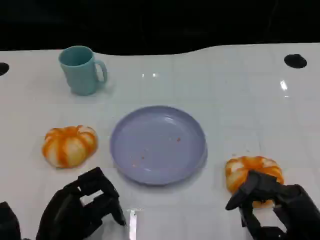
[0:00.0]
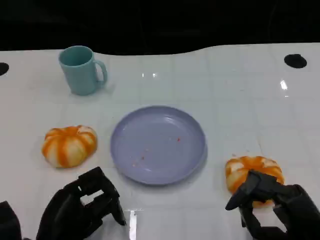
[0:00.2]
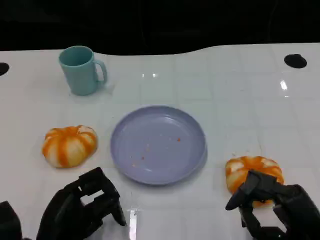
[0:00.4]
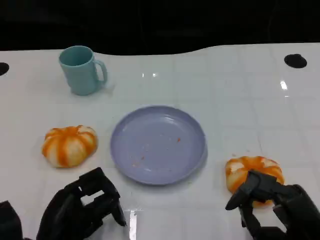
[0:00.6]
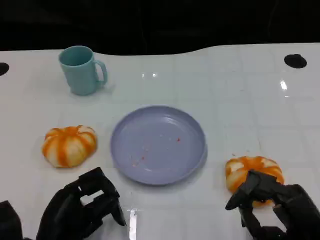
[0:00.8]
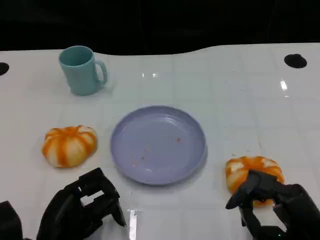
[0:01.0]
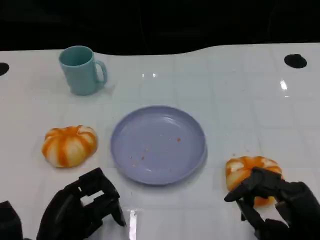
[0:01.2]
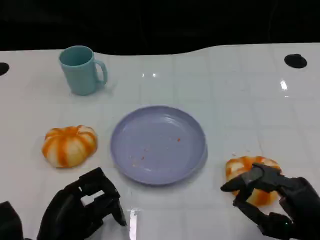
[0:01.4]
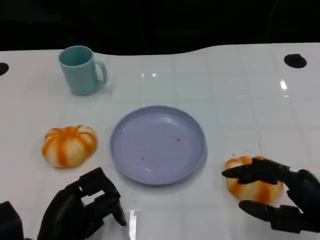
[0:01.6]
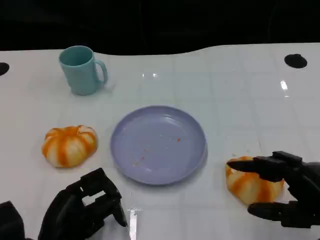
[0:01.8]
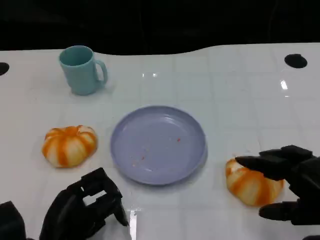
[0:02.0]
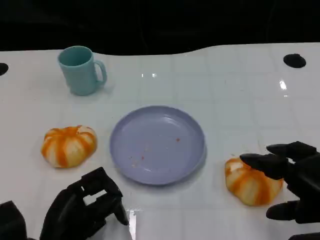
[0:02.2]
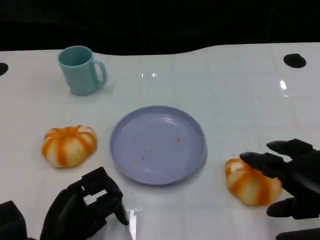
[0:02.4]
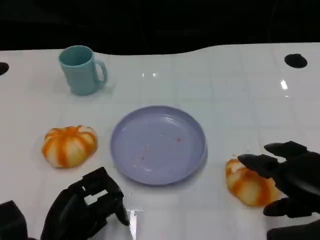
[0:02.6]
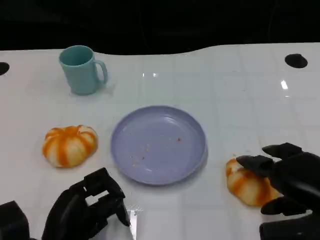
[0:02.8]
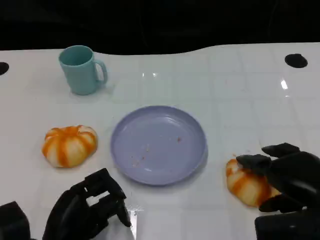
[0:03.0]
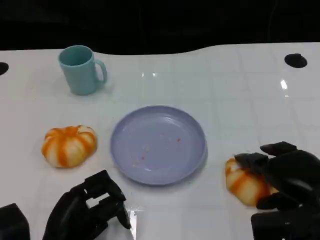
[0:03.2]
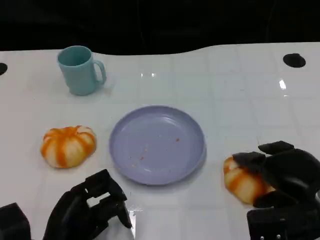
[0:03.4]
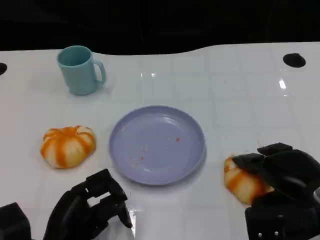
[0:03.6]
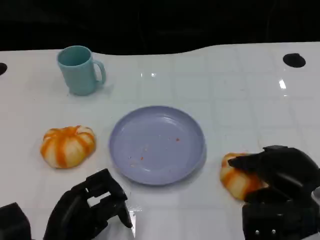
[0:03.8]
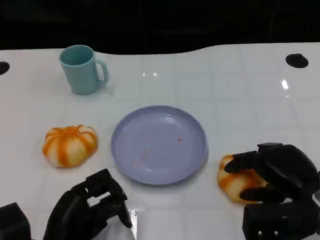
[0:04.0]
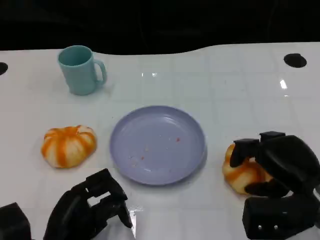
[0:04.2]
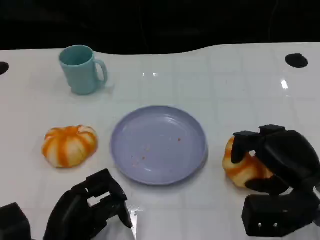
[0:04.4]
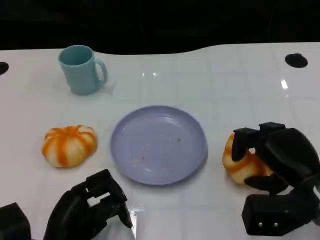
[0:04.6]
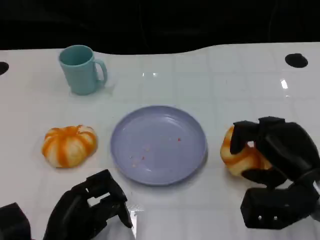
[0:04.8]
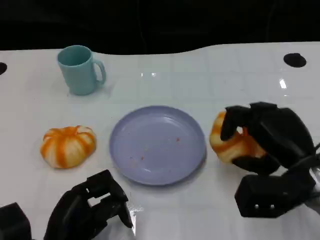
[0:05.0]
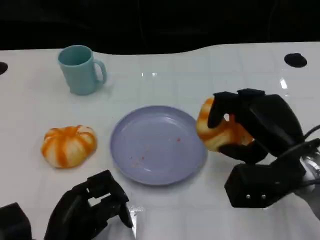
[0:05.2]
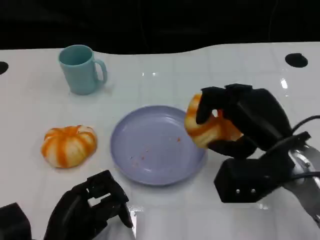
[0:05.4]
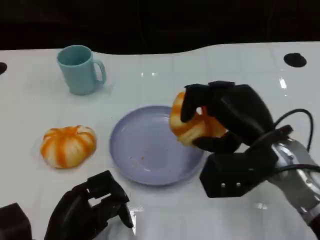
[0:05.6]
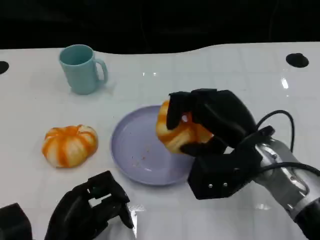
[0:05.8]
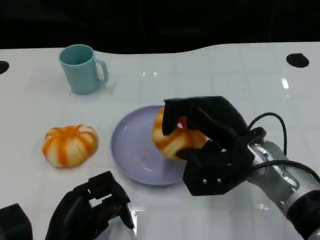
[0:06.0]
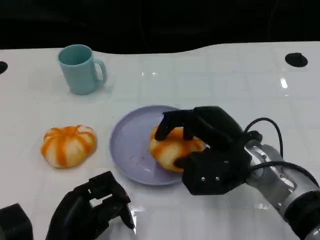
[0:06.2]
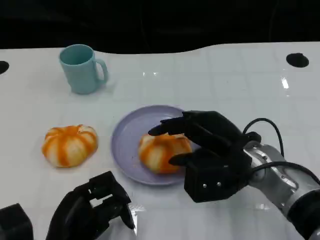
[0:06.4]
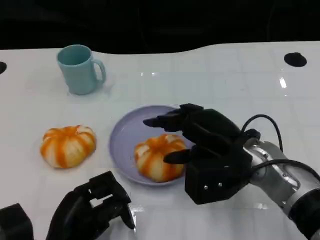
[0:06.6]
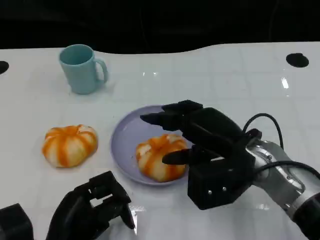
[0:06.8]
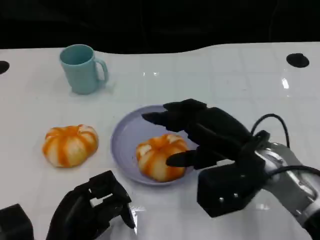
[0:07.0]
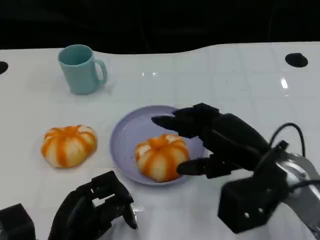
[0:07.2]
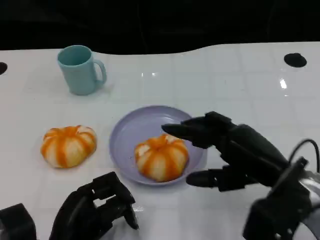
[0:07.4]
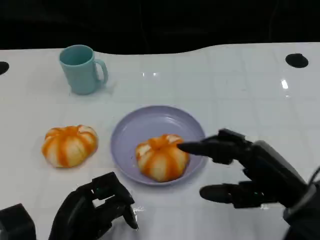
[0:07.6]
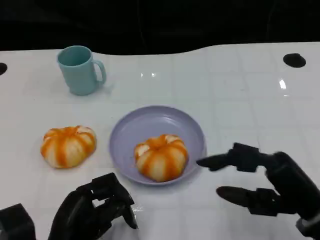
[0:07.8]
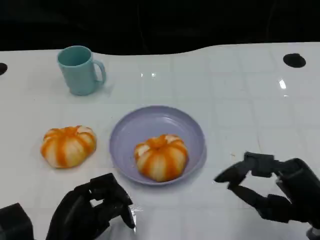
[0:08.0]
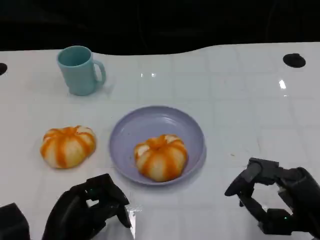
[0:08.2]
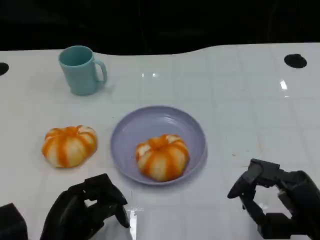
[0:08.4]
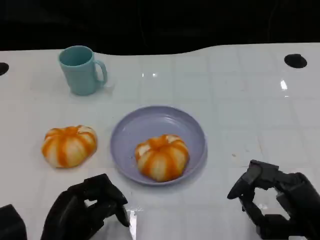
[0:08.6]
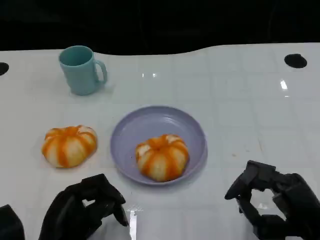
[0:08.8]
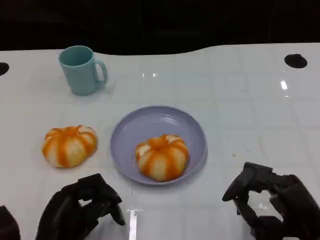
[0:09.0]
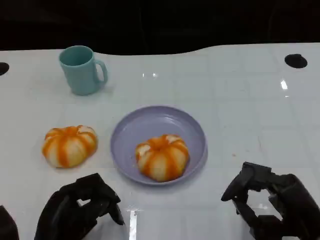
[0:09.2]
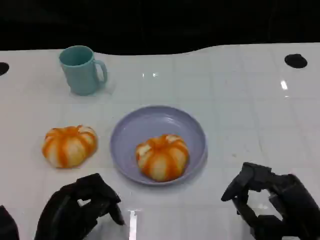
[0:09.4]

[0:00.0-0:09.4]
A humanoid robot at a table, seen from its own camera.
Task of the whole recording: Grasp the bread from the table and place it into the plate.
0:01.6 to 0:03.2: The right hand travels forward by roughly 5 cm.
0:04.8 to 0:06.2: The right hand is displaced to the left by some 10 cm.
0:06.2 to 0:07.8: The right hand travels to the right and backward by some 15 cm.
0:07.8 to 0:09.4: The hands stay close to where they were, moving slightly.

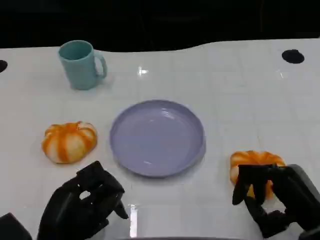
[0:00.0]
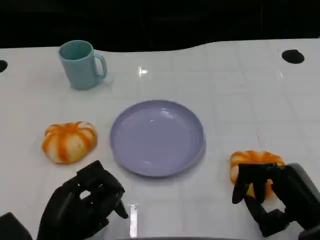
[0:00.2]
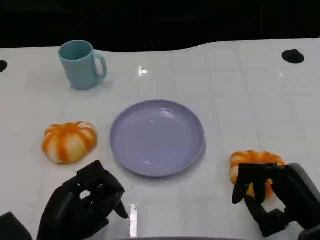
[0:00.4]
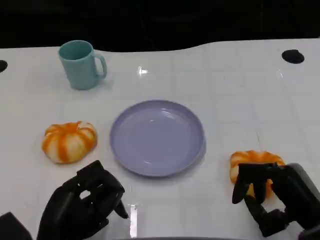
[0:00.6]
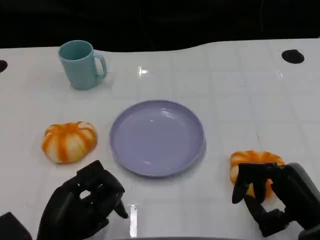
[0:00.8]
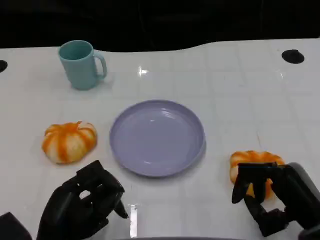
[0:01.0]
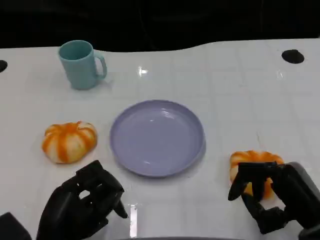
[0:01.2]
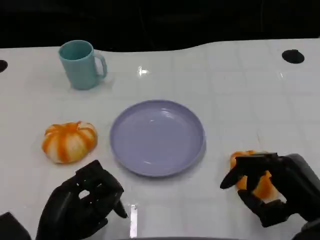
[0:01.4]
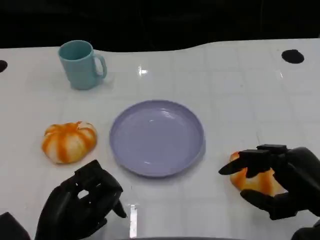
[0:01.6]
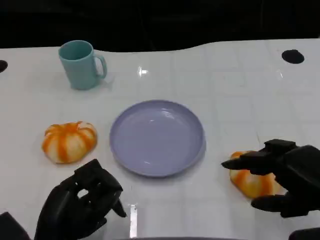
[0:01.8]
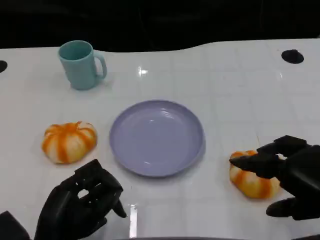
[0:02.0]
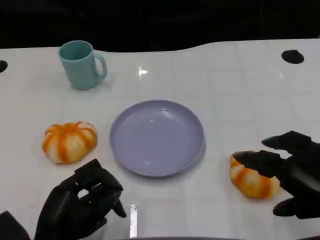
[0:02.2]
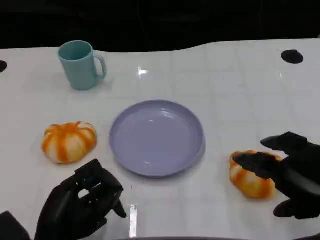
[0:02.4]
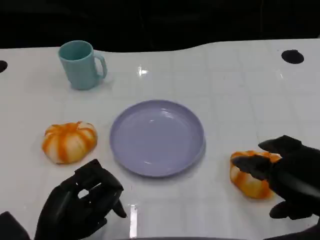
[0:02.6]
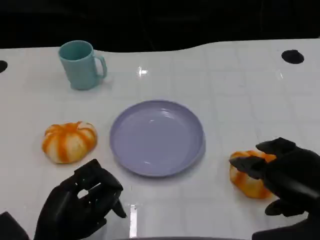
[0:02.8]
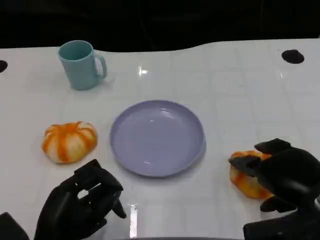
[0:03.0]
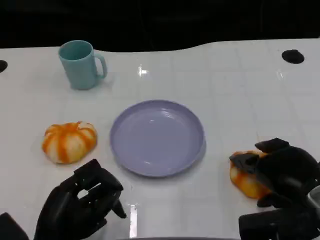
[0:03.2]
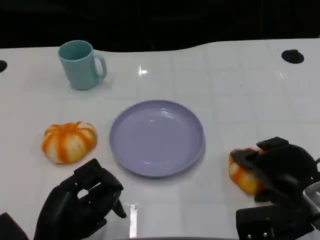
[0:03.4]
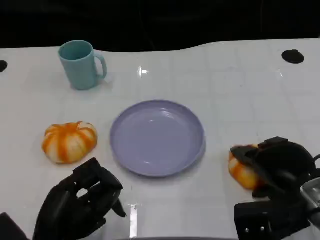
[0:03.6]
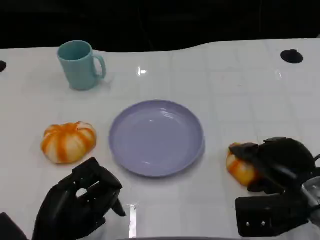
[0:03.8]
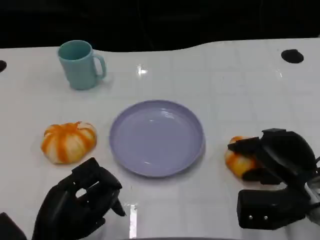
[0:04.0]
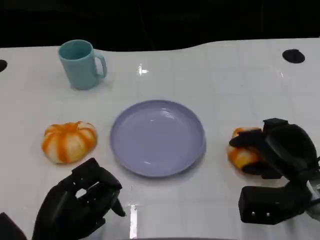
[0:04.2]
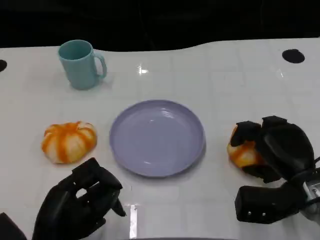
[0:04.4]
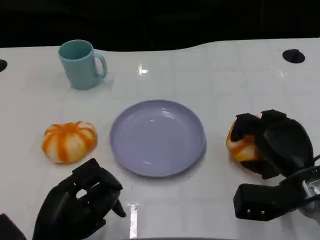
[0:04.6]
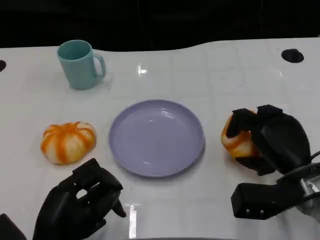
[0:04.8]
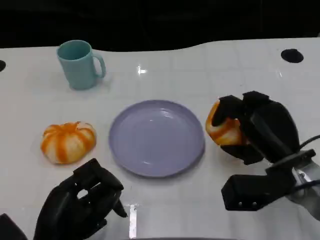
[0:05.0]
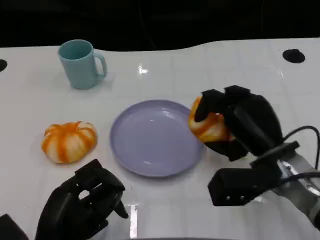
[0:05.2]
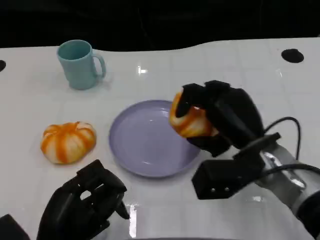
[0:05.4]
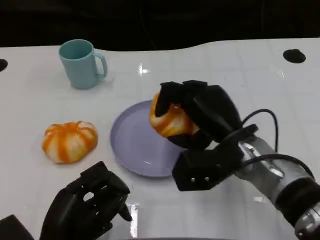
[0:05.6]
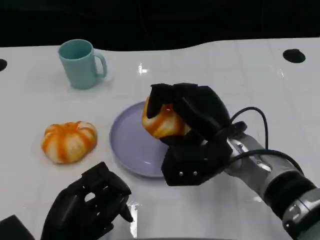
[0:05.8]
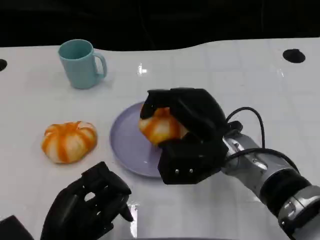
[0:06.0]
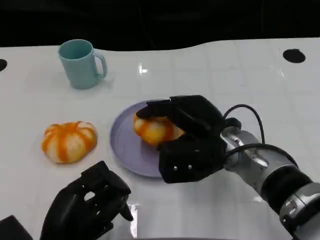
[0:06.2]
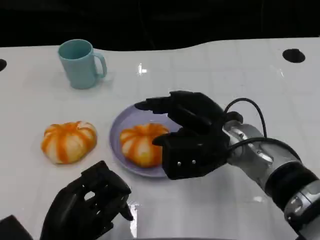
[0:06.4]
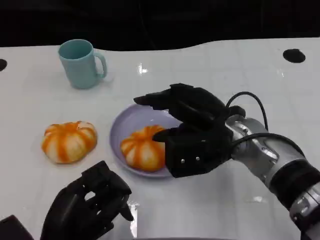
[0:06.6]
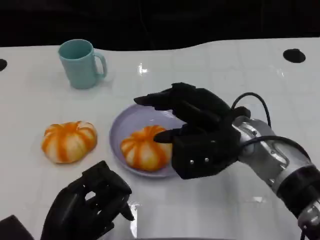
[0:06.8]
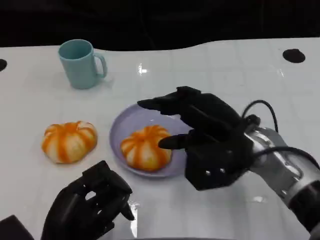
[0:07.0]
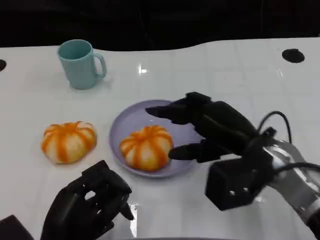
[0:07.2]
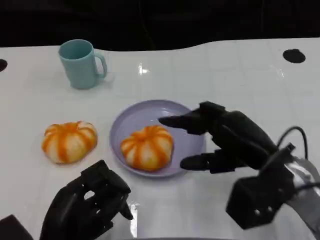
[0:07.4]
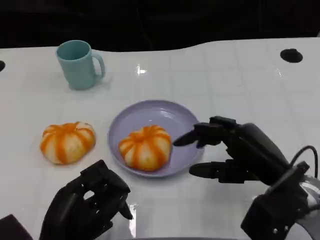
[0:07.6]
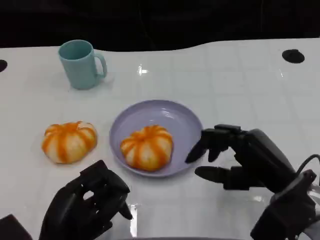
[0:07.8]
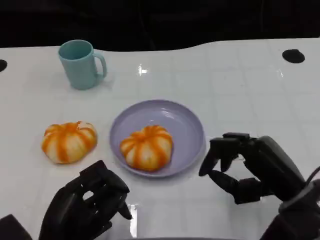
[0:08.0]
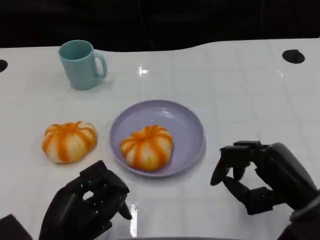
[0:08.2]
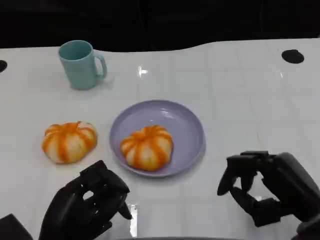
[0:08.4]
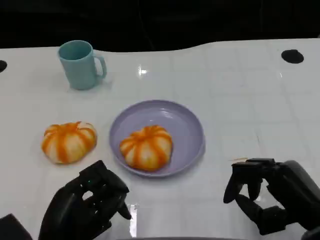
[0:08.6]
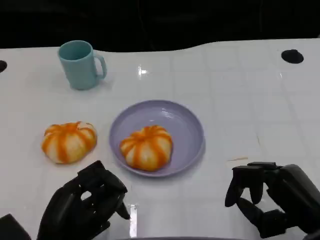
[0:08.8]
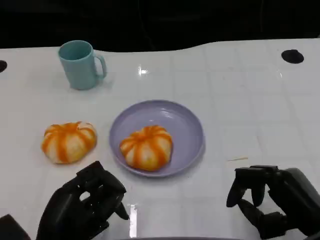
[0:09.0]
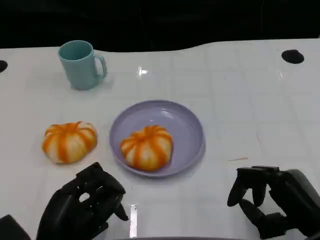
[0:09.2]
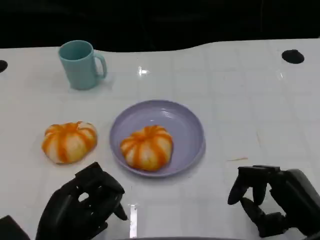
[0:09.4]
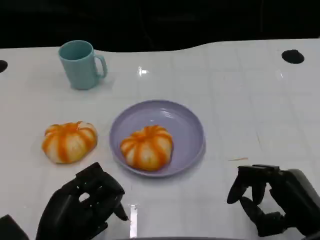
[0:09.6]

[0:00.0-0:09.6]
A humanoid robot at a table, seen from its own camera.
Task of the whole recording: Grasp the bread from the table and place it into the plate.
0:00.0 to 0:01.6: The right hand moves upward, approximately 5 cm.
0:03.2 to 0:04.8: The right hand changes place by about 5 cm.
0:04.8 to 0:06.4: The right hand shifts about 10 cm to the left and upward.
0:06.4 to 0:08.0: The right hand moves to the right and backward, roughly 15 cm.
0:08.0 to 0:09.6: The right hand moves about 5 cm.

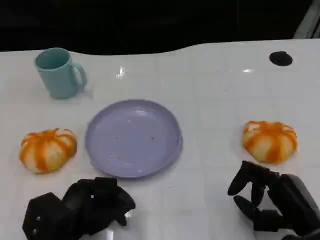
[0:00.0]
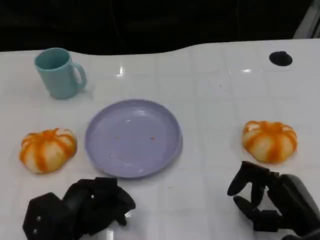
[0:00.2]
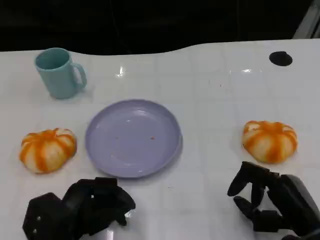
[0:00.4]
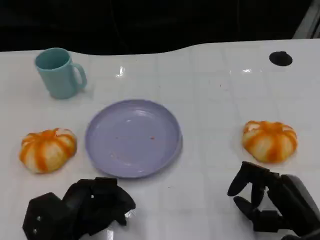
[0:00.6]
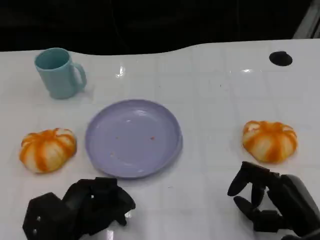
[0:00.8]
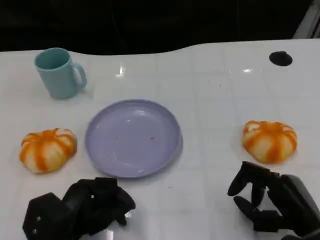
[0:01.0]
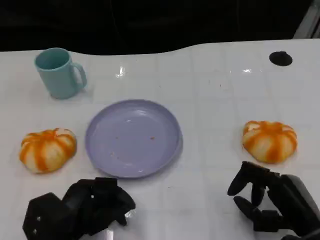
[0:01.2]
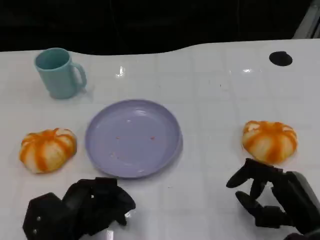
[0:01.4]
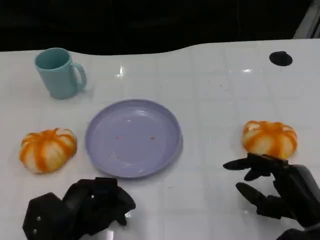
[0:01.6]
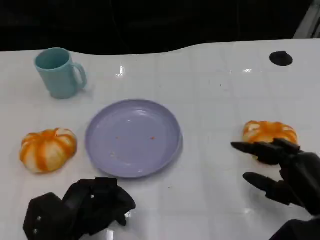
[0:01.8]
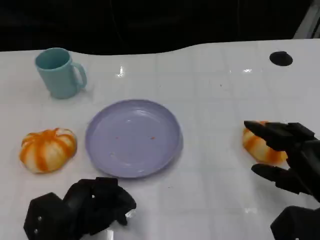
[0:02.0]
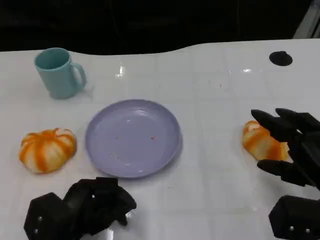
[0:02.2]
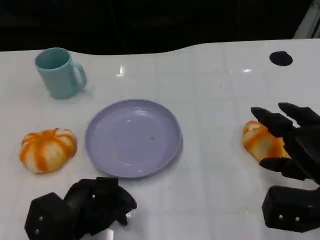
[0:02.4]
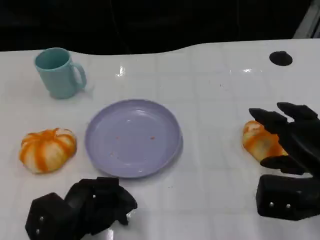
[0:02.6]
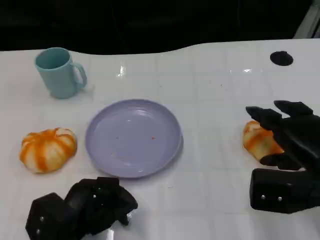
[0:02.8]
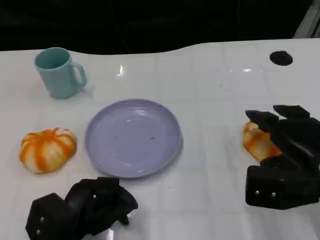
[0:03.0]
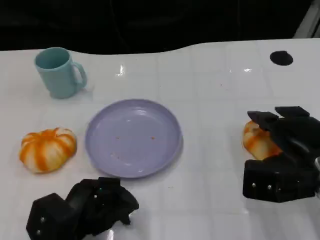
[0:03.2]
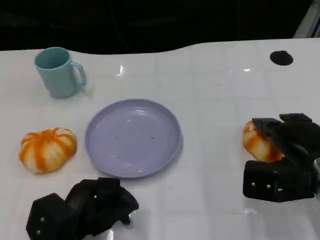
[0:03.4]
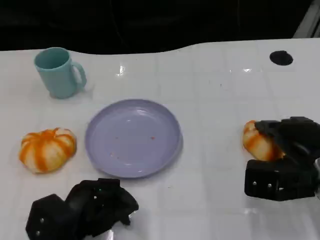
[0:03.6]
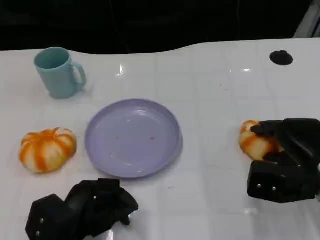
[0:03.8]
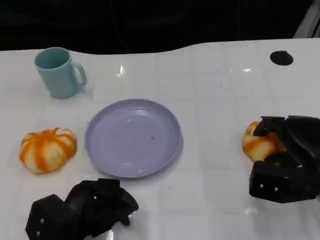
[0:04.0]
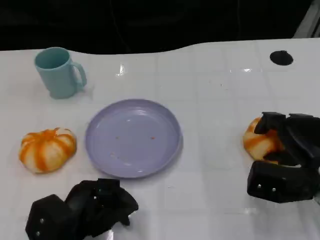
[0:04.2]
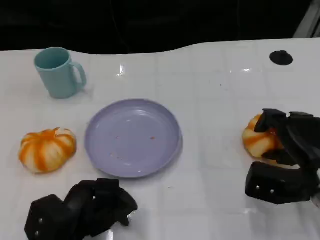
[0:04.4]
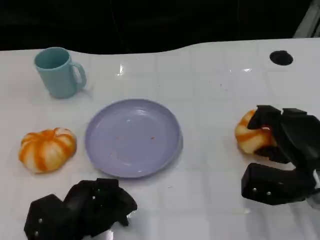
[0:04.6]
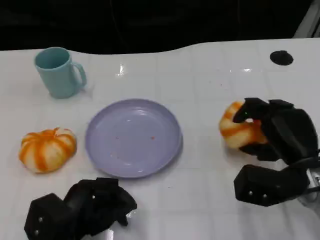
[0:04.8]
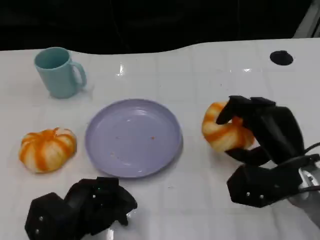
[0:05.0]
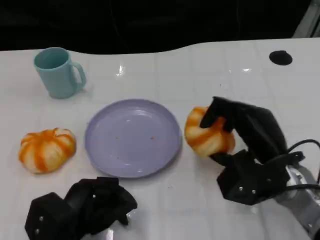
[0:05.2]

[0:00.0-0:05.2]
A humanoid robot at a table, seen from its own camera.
Task of the whole recording: Grasp the bread from the table and place it into the plate.
0:00.0 to 0:01.8: The hands move only a little.
0:01.8 to 0:03.4: The right hand goes some 5 cm forward.
0:03.4 to 0:05.2: The right hand moves to the left, roughly 5 cm.
